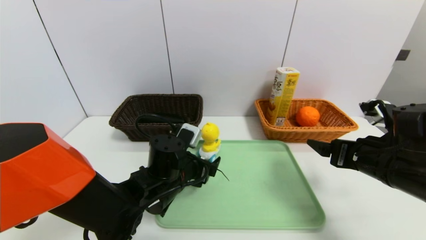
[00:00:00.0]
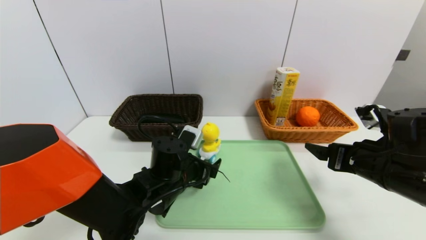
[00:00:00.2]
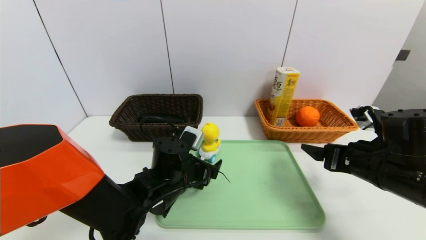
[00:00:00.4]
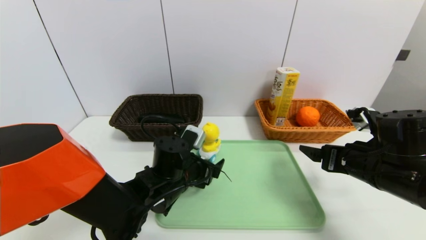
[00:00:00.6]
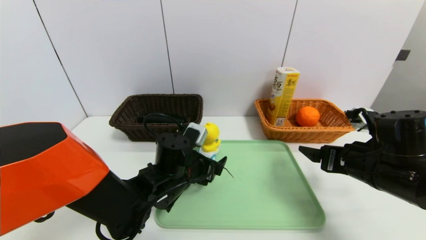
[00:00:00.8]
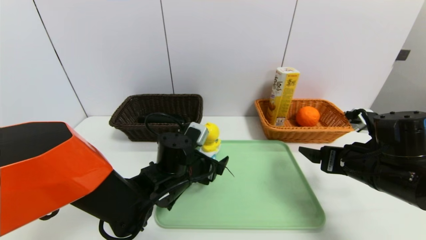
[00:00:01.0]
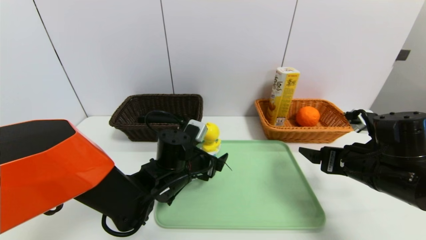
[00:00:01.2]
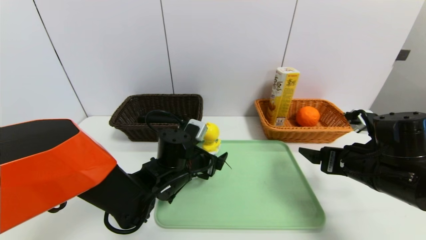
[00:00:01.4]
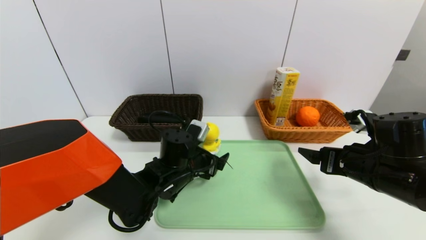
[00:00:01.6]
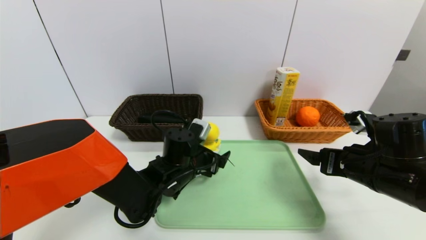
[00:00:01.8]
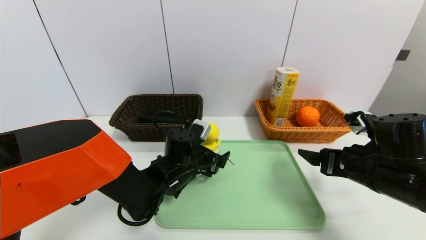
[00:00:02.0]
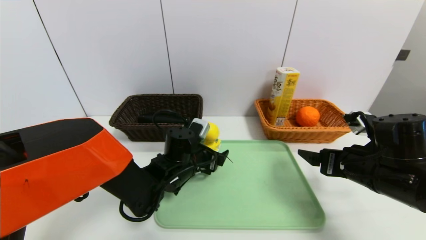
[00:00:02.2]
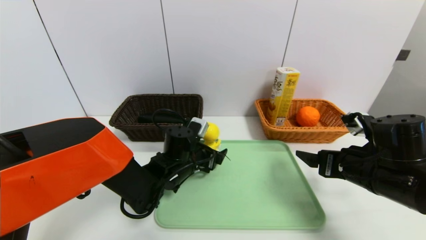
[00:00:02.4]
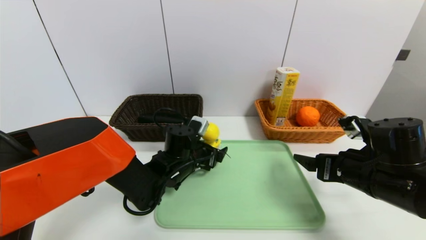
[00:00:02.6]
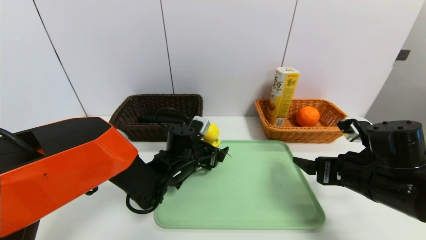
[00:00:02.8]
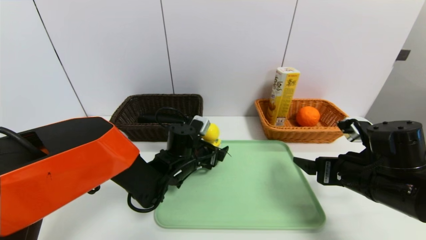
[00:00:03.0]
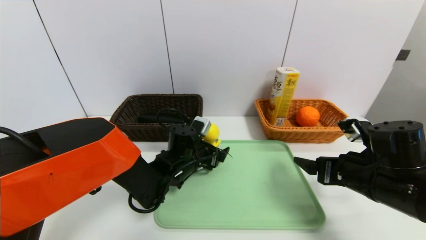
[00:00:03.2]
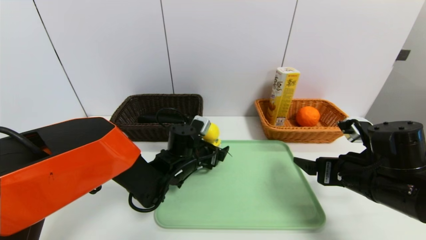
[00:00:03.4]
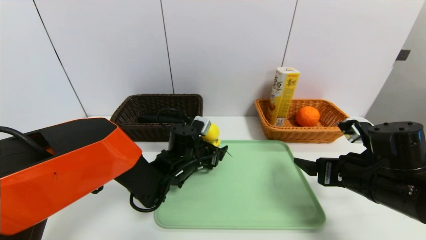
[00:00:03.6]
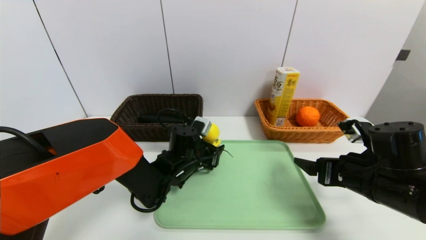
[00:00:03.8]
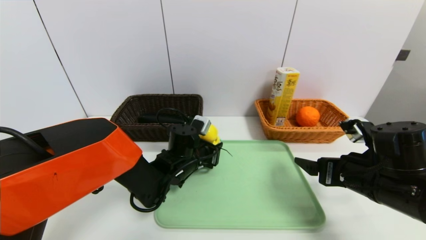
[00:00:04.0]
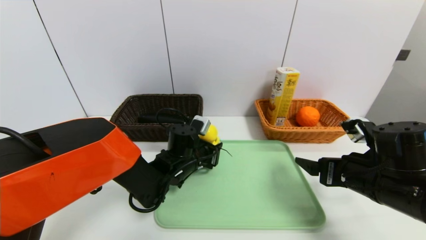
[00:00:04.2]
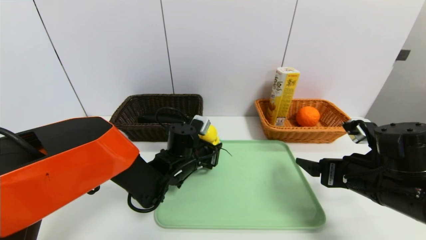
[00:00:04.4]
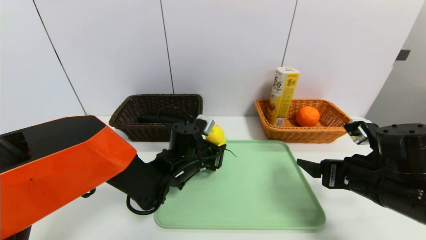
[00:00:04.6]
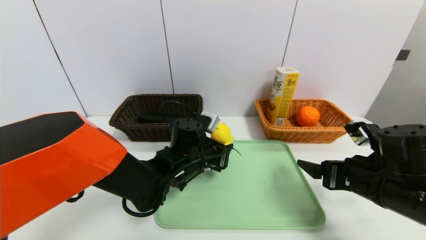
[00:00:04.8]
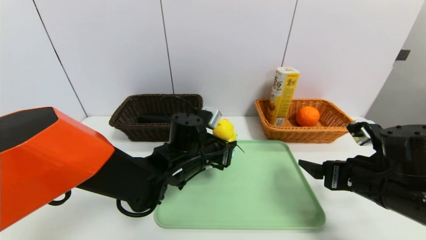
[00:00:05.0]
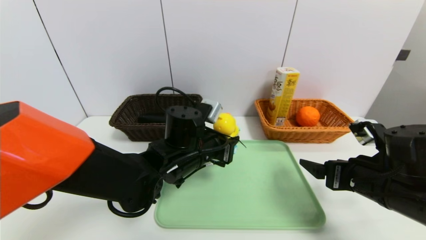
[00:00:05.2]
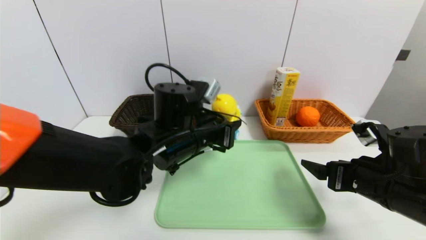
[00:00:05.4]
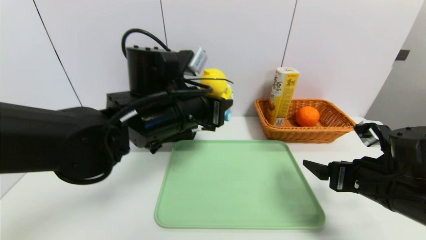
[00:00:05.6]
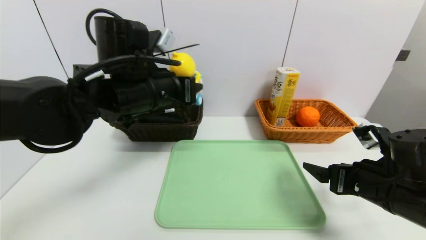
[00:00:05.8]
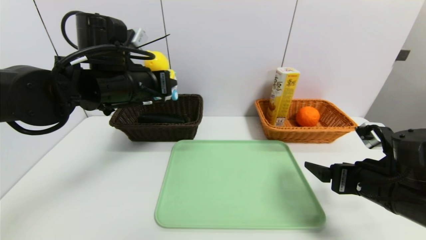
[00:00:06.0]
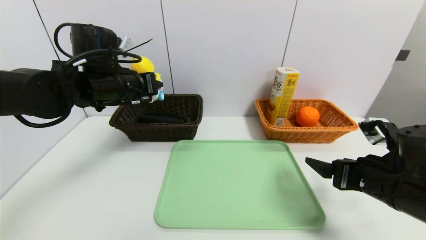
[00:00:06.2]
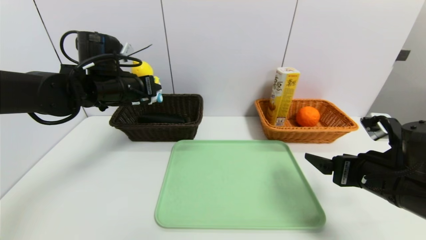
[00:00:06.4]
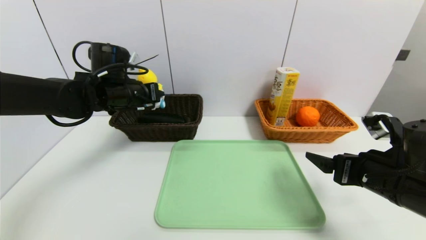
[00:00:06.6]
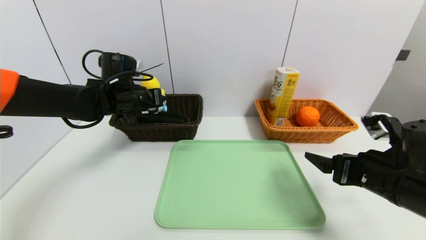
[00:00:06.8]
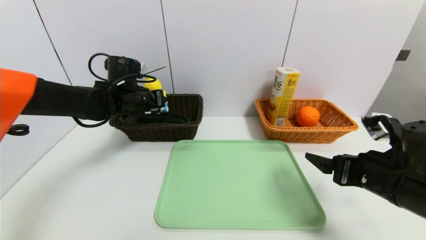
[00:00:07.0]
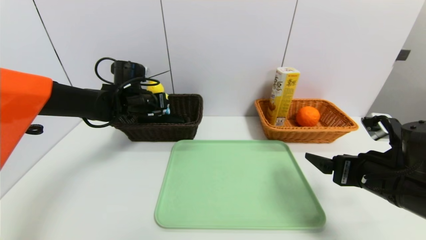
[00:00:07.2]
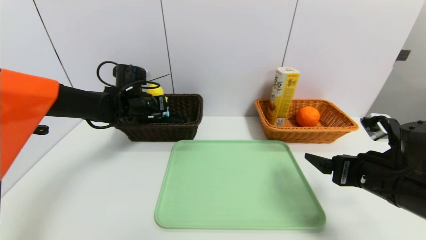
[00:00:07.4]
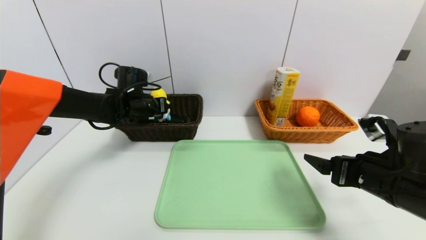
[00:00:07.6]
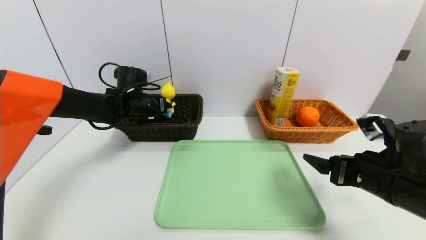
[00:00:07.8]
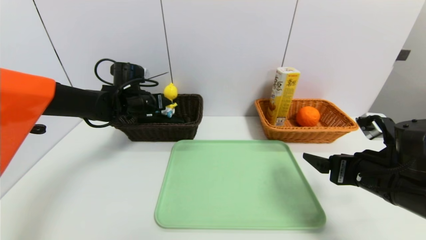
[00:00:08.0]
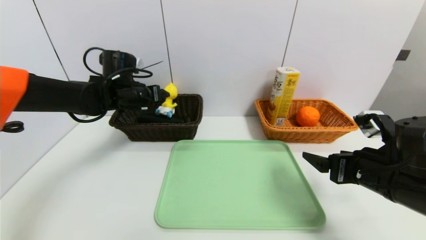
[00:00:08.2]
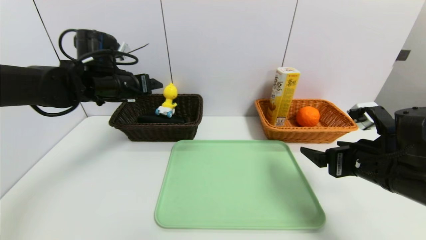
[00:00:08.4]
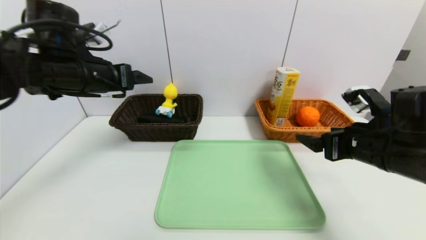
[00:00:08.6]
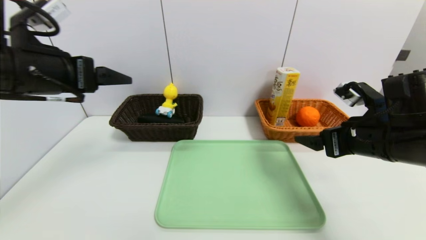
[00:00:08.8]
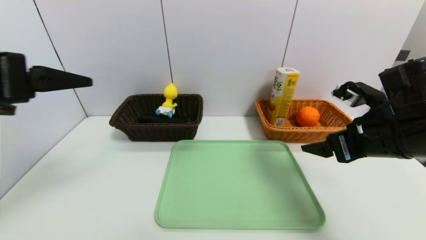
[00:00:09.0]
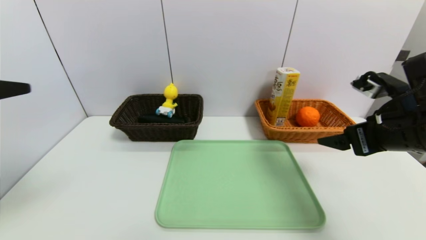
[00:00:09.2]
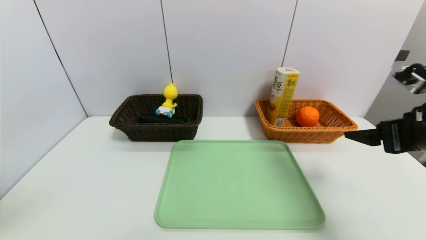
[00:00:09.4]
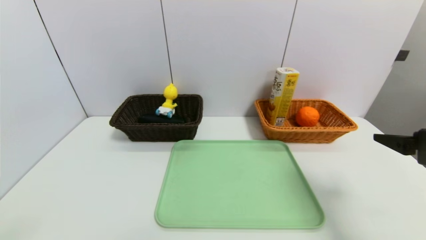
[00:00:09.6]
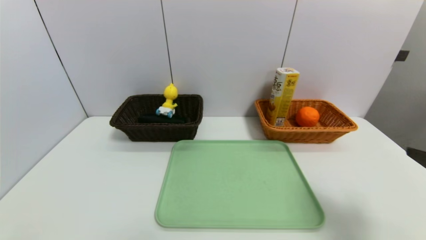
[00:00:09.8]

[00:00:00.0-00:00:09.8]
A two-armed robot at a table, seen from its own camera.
Task of the whole recording: place the food in the right basket with the right gripper, and place the non food items in the left basket with the left gripper.
Step, 00:00:00.0 to 00:00:08.2: Grasp the duck toys and put it in the left basket.
00:00:00.0 to 00:00:01.4: The grippers move only a little.
00:00:01.4 to 00:00:02.8: The grippers move only a little.
00:00:02.8 to 00:00:04.2: The left gripper closes up.
00:00:04.2 to 00:00:05.6: The left gripper goes approximately 15 cm upward.
00:00:05.6 to 00:00:07.0: The left gripper travels forward and to the left by about 20 cm.
00:00:07.0 to 00:00:08.4: The left gripper heads upward, covering some 5 cm, and opens.
00:00:08.4 to 00:00:09.8: The right gripper shifts about 15 cm backward, to the right and upward. Meanwhile the left gripper shifts roughly 40 cm backward.
